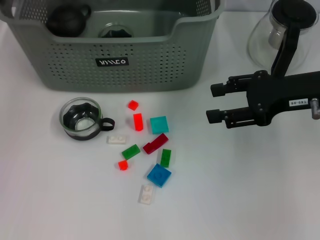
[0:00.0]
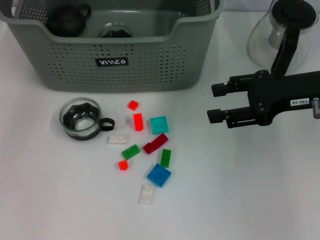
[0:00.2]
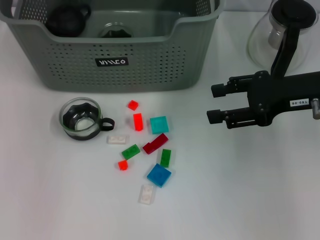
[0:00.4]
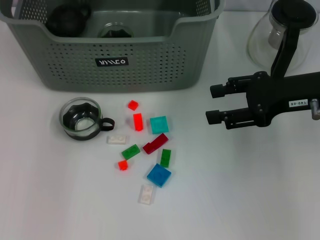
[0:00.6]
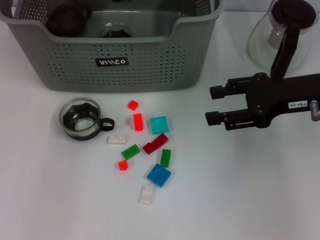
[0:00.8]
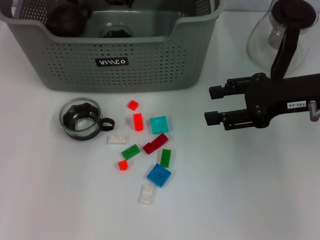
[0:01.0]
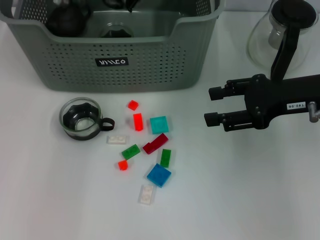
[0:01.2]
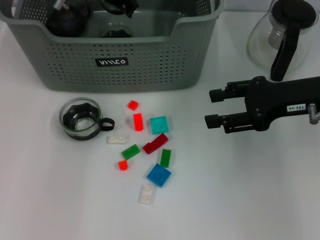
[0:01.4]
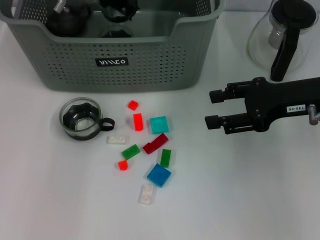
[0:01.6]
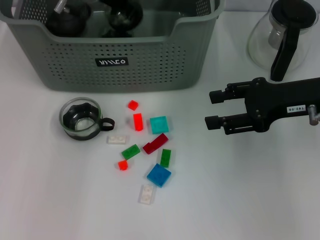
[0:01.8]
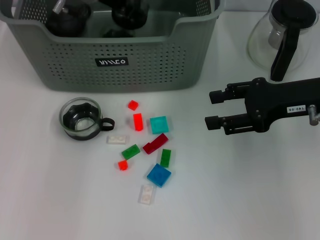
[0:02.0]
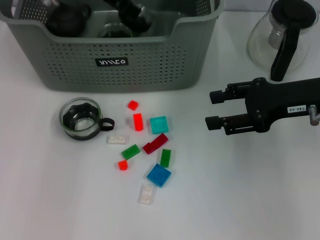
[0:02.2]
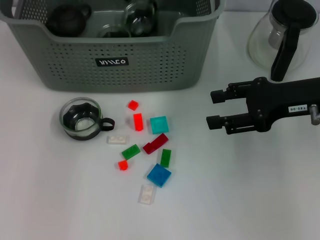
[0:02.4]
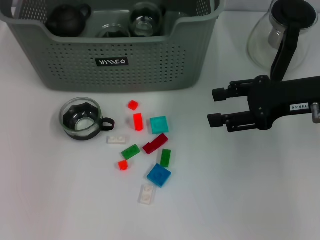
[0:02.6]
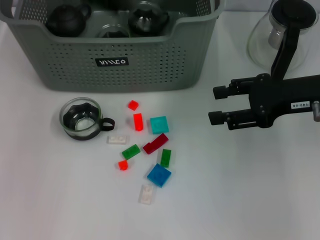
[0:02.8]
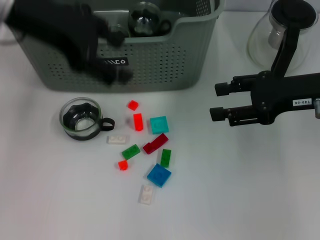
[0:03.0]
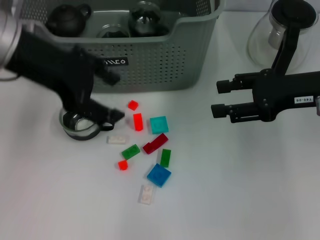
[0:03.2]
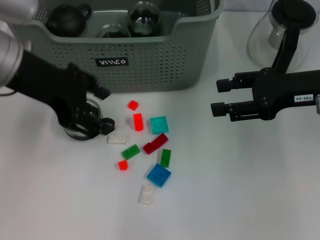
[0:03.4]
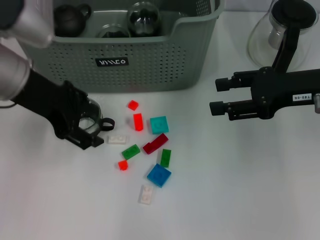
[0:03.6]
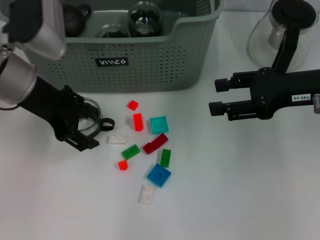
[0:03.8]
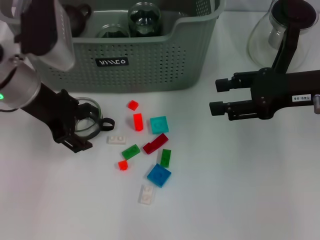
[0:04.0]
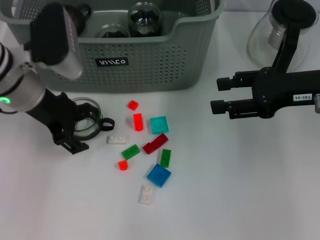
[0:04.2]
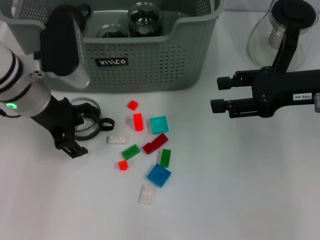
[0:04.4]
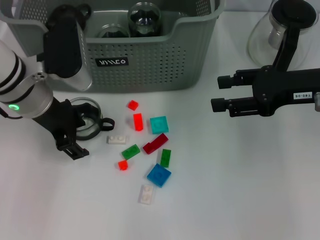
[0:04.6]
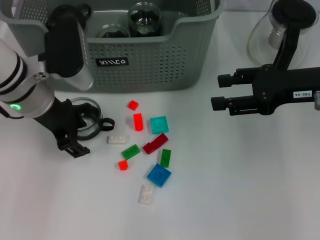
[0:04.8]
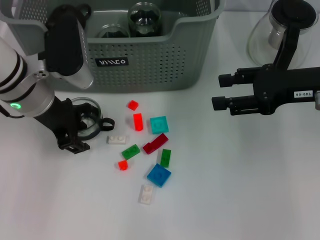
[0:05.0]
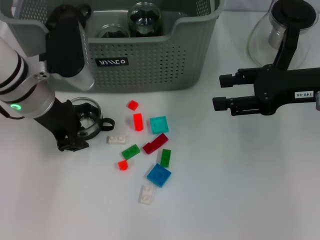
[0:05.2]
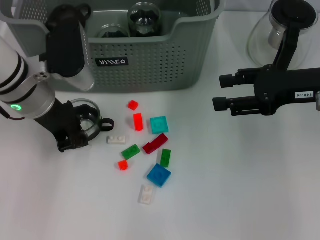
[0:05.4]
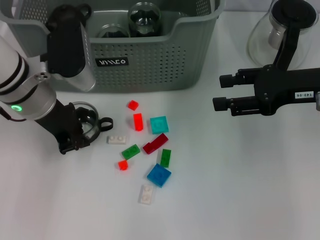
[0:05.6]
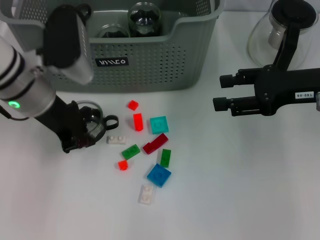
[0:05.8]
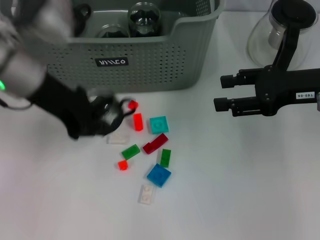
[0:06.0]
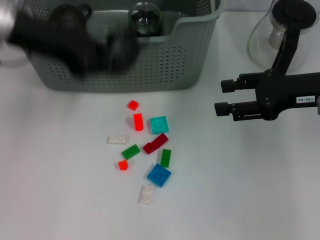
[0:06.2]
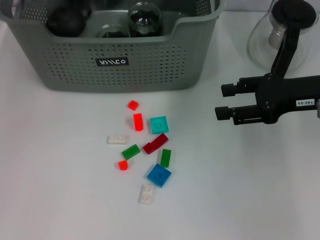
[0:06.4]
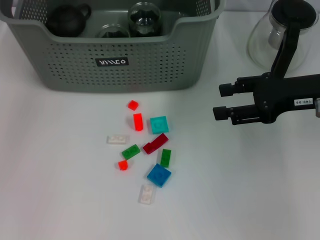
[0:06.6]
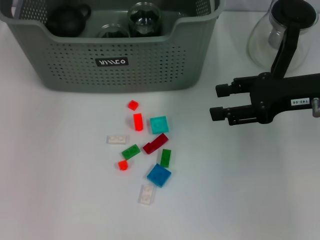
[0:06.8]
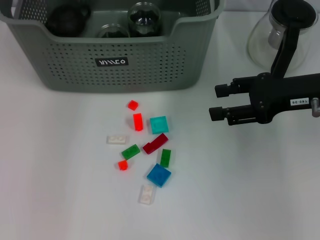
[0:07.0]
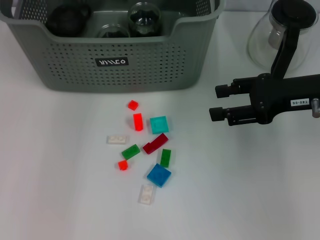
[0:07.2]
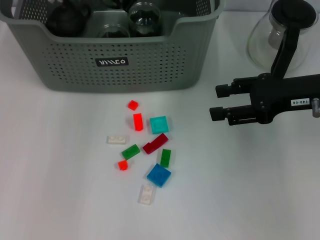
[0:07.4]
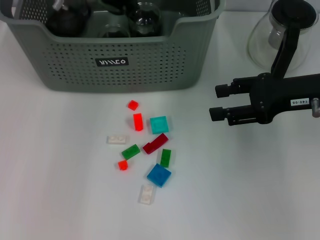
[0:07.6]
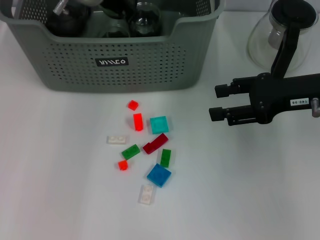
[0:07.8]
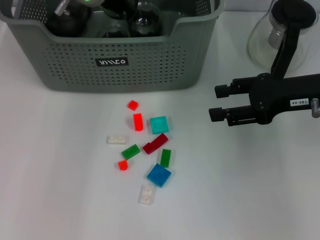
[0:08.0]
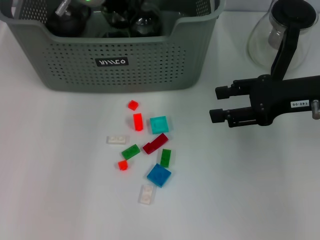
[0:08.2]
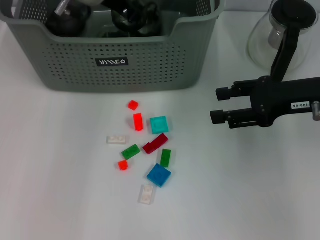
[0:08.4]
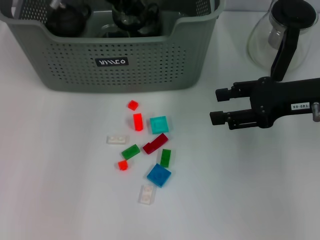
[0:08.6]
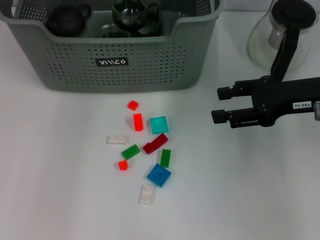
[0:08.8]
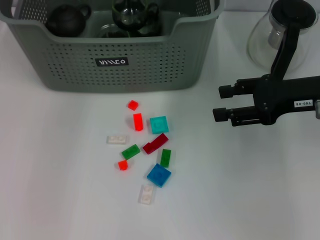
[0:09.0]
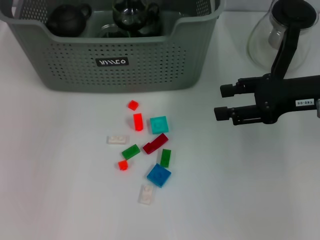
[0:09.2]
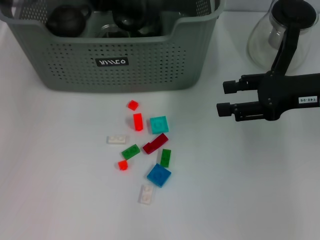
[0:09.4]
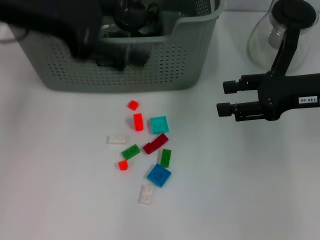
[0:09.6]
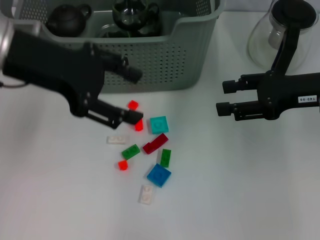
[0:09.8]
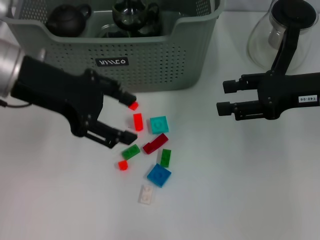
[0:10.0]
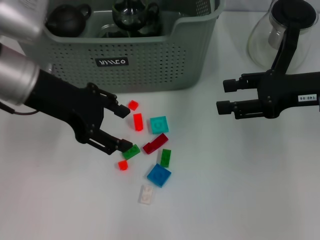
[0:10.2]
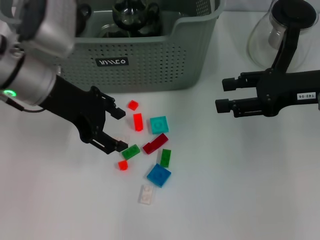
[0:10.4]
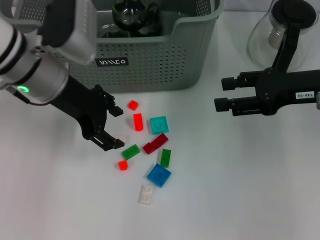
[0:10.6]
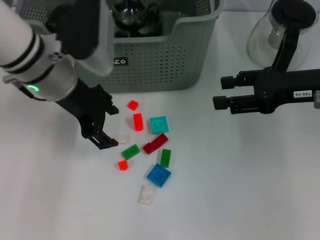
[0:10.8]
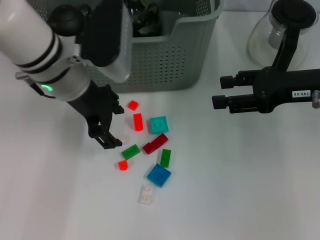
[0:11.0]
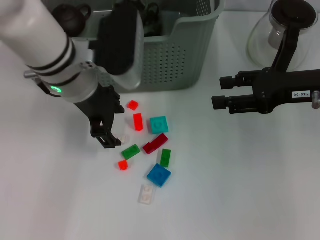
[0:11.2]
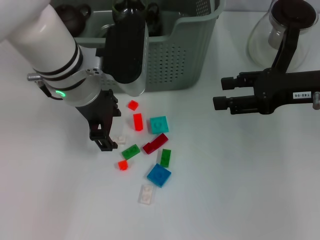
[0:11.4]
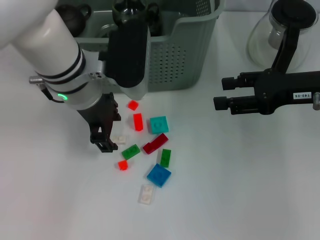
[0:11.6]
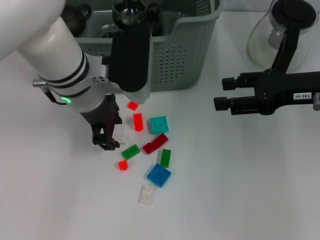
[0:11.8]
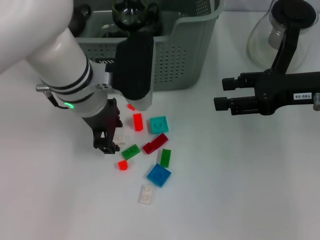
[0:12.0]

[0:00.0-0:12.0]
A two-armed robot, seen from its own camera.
Task of the whole recording: pick up the teacup on the table and place it into the storage bin, pick up the block on the table and place it into the storage bin.
Step, 0:00.0 to 0:02.8: Place the cup in the storage box with left gripper.
Step, 0:03.0 to 0:05.4: Grasp the cup with left gripper.
Step, 0:05.6 to 0:09.2: Place the cup in the storage box with left gripper.
0:00.0 to 0:01.6: The left gripper goes roughly 15 cm to the right, forward and downward.
0:01.6 to 0:03.0: The left gripper travels backward, upward and to the left by roughly 15 cm, and opens its fingers.
0:03.0 to 0:04.4: The left gripper shifts about 15 cm downward.
0:04.4 to 0:06.0: The left gripper is displaced upward by approximately 5 cm, and closes its fingers.
0:06.0 to 0:07.6: The left gripper moves forward and to the right, about 15 cm.
0:07.6 to 0:09.0: The left gripper moves upward, some 10 cm, and opens its fingers.
0:09.0 to 0:10.4: The left gripper shifts roughly 15 cm downward and backward.
0:10.4 to 0:12.0: The left gripper is displaced to the right by some 10 cm.

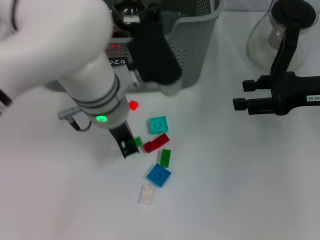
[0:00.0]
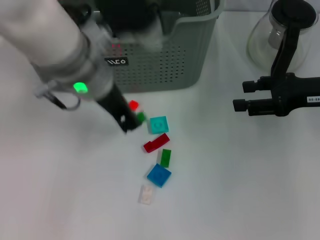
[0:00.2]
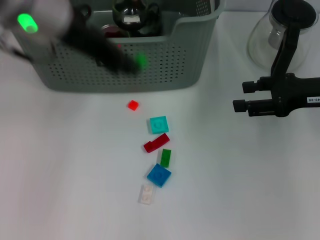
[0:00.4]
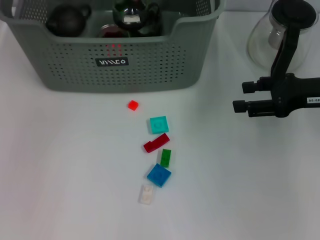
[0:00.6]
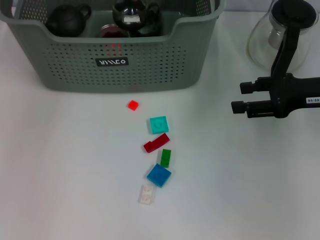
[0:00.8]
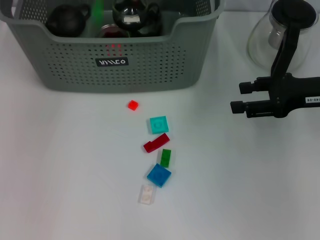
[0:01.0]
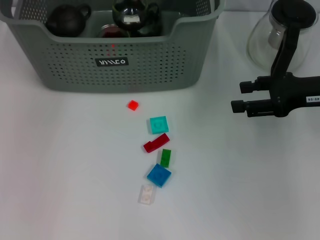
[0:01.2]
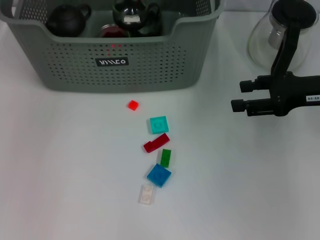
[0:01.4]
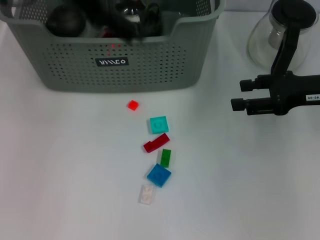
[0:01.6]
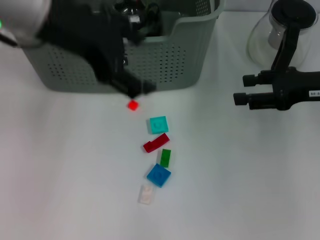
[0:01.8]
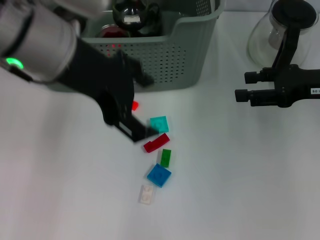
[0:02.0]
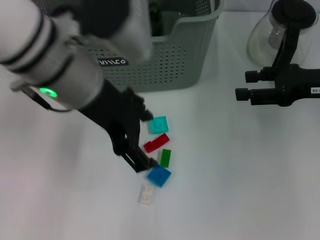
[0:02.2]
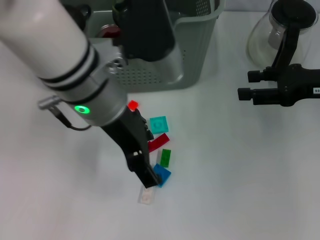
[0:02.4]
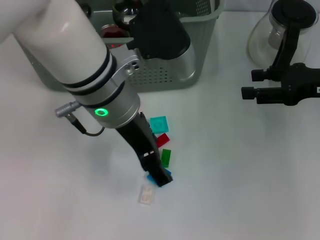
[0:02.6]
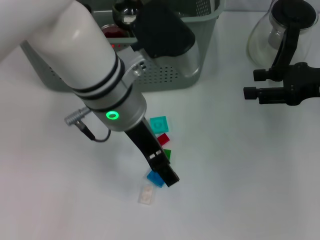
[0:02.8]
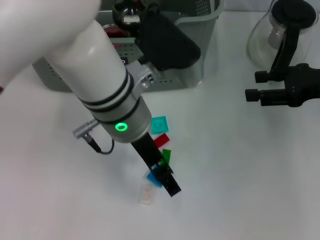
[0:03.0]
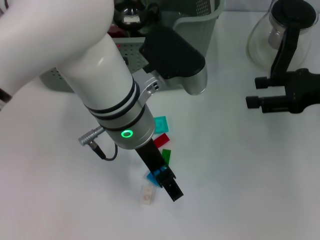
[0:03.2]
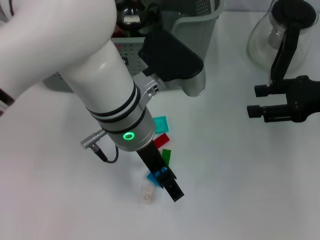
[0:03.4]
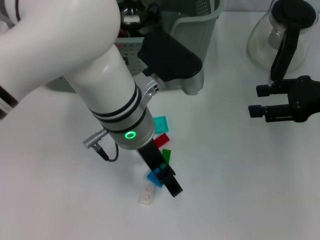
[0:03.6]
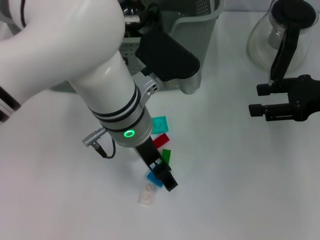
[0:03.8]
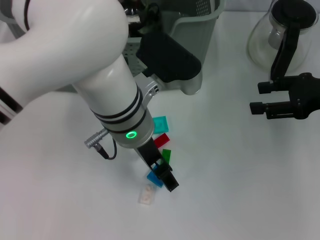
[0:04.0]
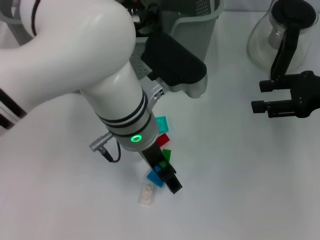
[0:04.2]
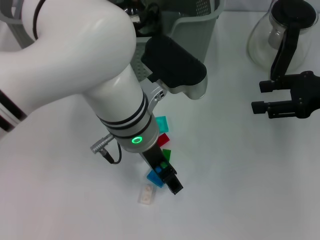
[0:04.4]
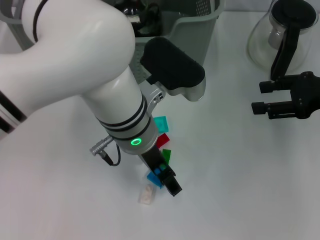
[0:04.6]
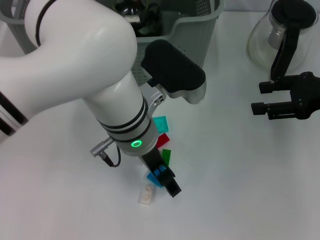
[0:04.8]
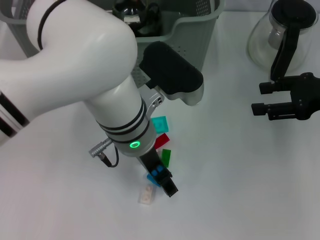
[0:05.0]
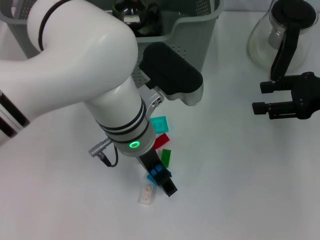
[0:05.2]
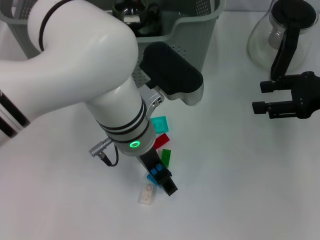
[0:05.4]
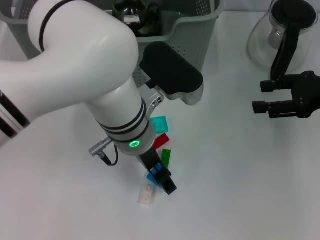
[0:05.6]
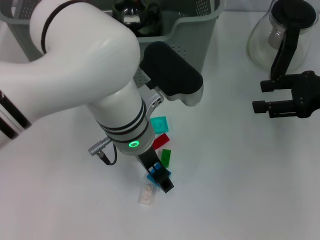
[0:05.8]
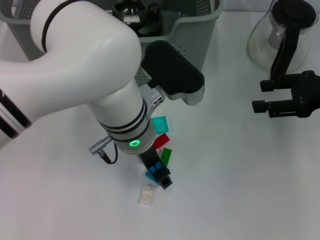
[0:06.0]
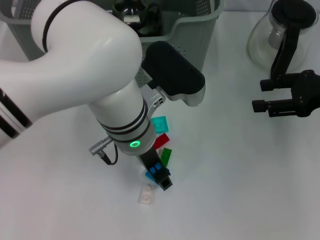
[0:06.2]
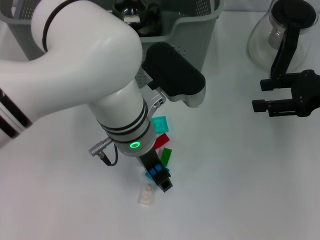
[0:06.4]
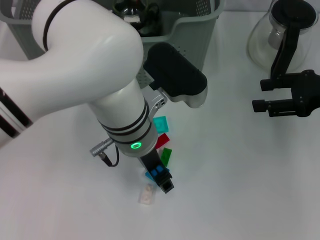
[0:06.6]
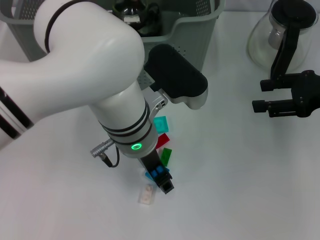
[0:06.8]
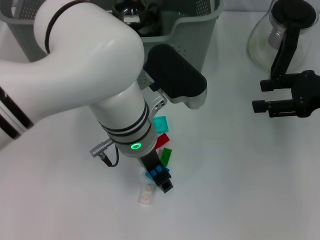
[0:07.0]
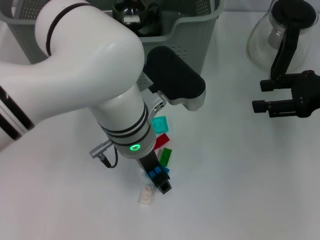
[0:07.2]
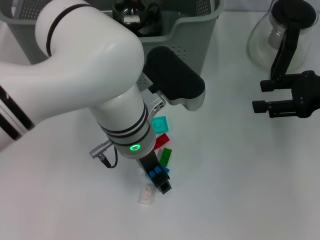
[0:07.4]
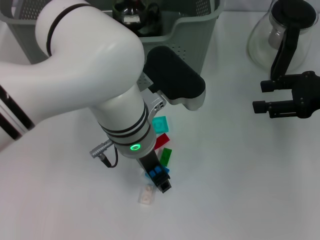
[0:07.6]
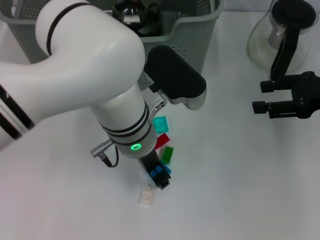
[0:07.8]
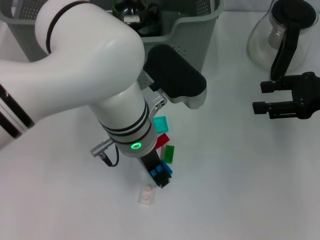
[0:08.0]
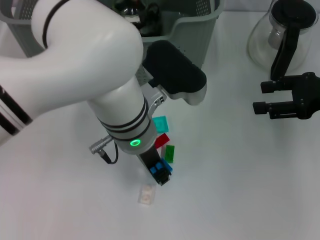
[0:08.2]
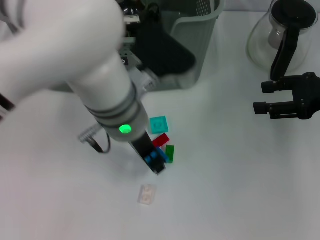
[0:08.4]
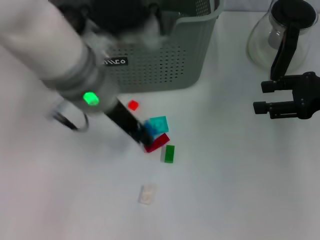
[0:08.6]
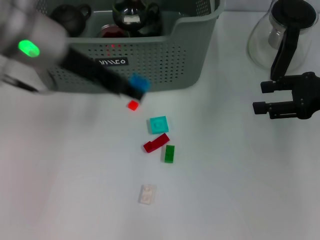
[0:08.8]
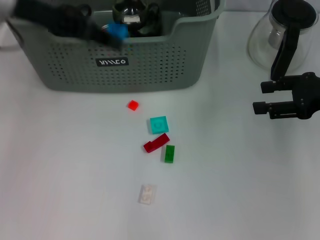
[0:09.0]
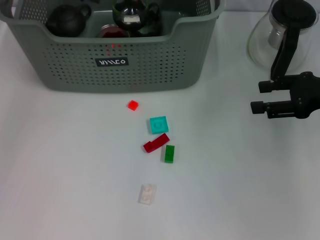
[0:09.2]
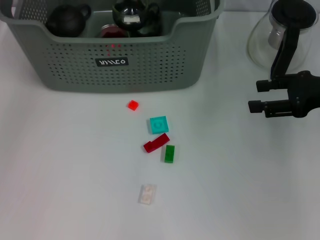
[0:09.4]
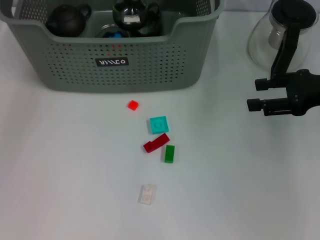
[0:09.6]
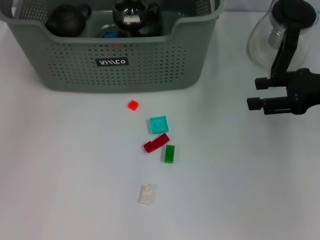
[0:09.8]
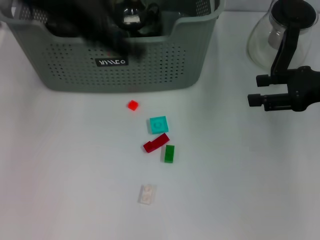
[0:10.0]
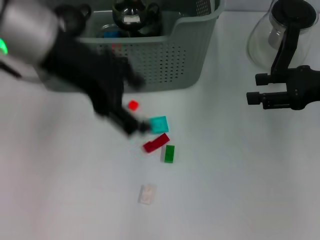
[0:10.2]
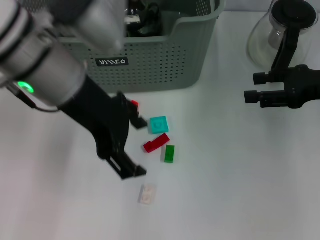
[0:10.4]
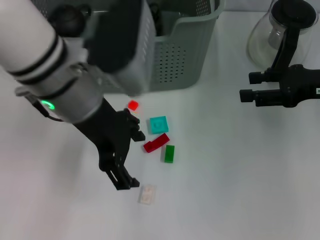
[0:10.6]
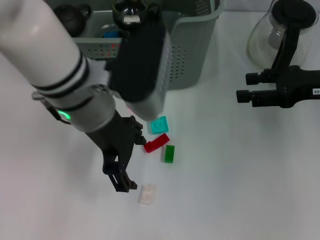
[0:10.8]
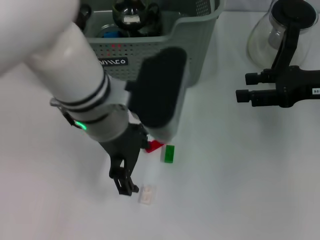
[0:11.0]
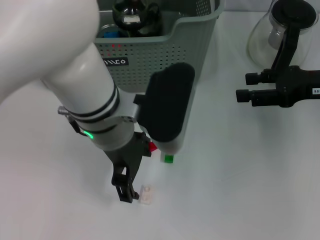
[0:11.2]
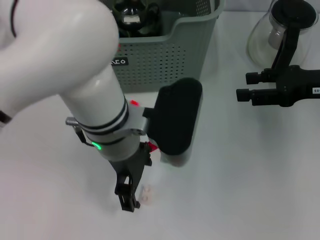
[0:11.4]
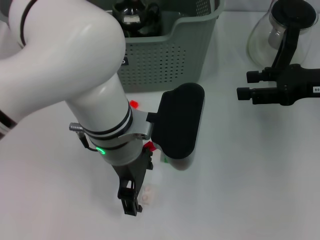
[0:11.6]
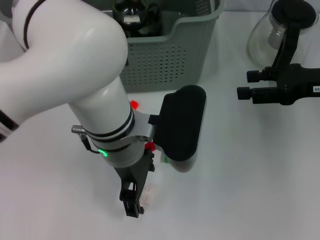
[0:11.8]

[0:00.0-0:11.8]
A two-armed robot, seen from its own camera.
Task of the whole recording: pick up the teacup on the table and place it into the storage bin, pick up the block on the table and place it into the storage bin.
Step, 0:00.0 to 0:01.2: Place the green block in the storage box with left gripper.
Step, 0:01.4 to 0:07.8: Grasp the dark blue block with left gripper.
Step, 0:08.0 to 0:09.6: Place the dark blue block in the storage box with left gripper.
0:00.0 to 0:01.4: The left gripper heads upward, to the left and forward, covering some 20 cm, and opens its fingers.
0:01.4 to 0:03.0: The left gripper moves to the right, downward and backward, roughly 20 cm.
0:04.4 to 0:06.0: The two grippers keep their place.
0:06.0 to 0:07.4: Both grippers stay about where they are.
0:07.4 to 0:08.8: The left gripper travels to the left and upward by roughly 15 cm.
0:08.8 to 0:10.4: The left gripper moves some 10 cm forward and comes back, and opens up.
0:10.4 to 0:11.8: The left gripper moves downward and to the right, roughly 15 cm.
